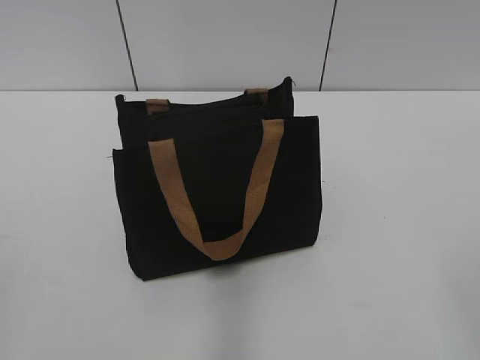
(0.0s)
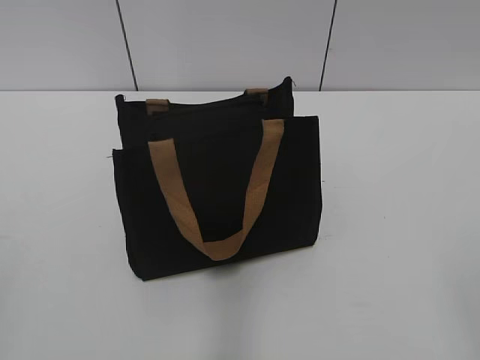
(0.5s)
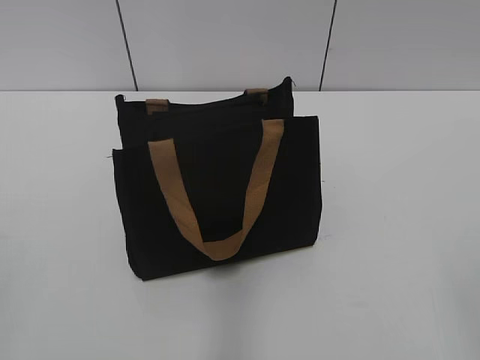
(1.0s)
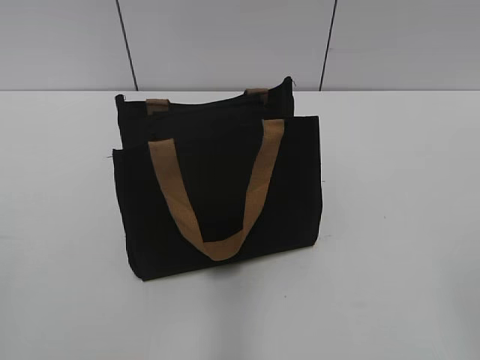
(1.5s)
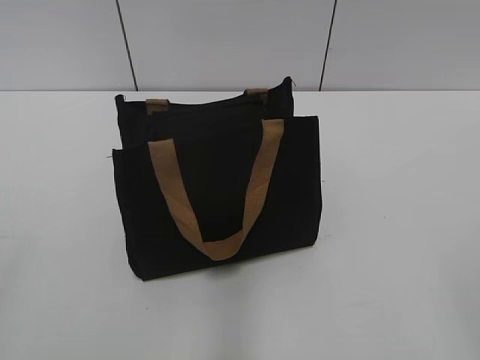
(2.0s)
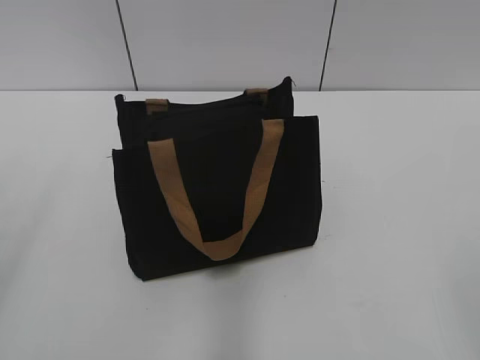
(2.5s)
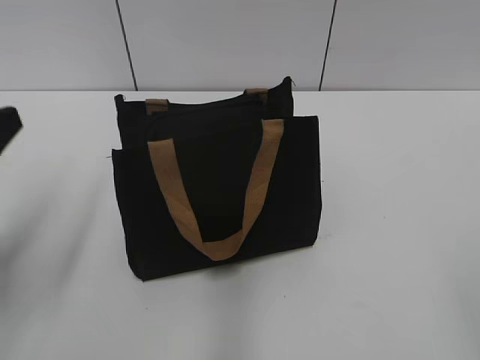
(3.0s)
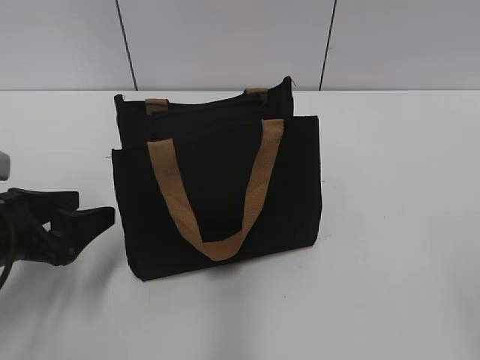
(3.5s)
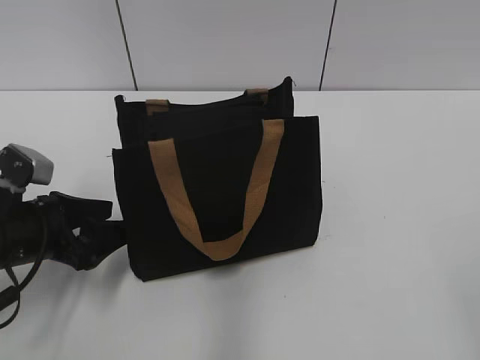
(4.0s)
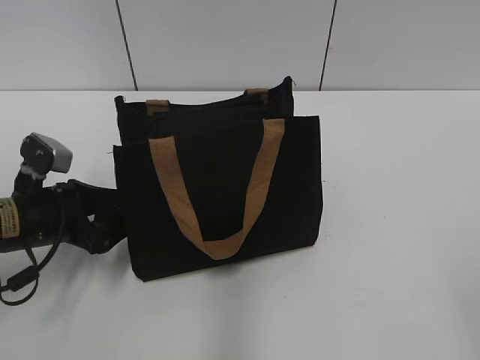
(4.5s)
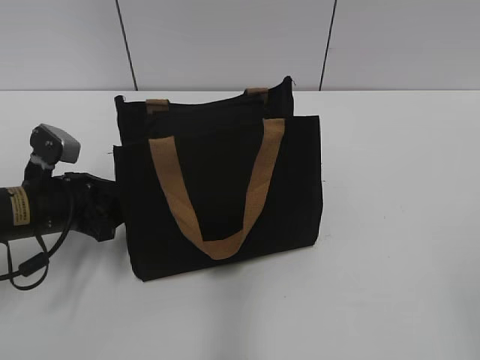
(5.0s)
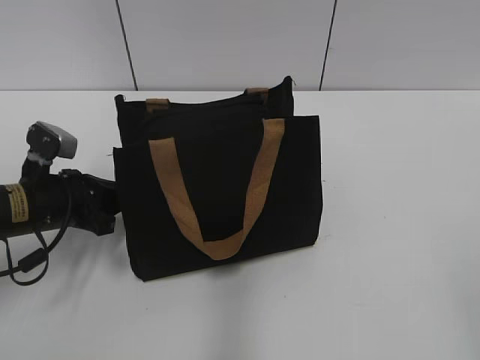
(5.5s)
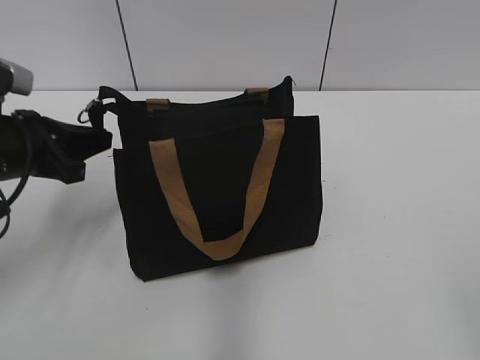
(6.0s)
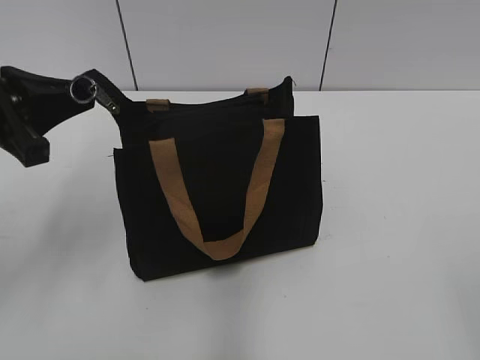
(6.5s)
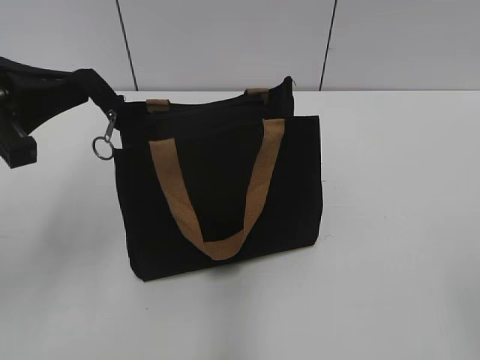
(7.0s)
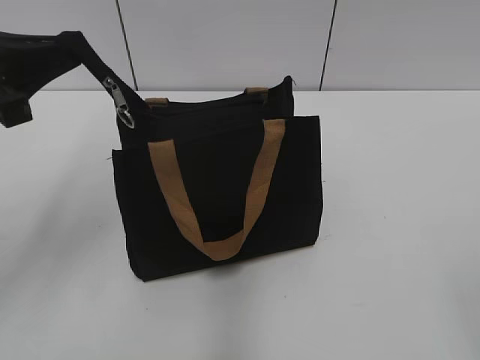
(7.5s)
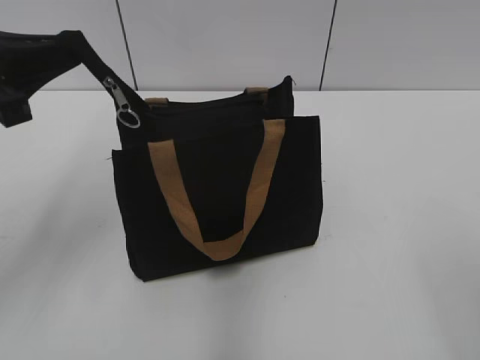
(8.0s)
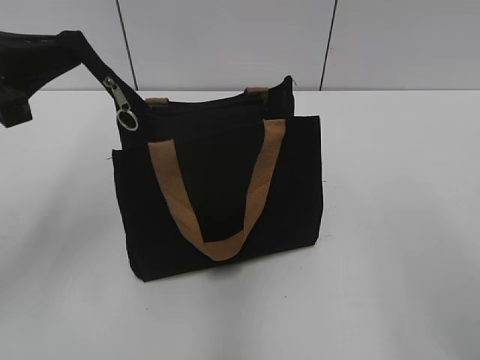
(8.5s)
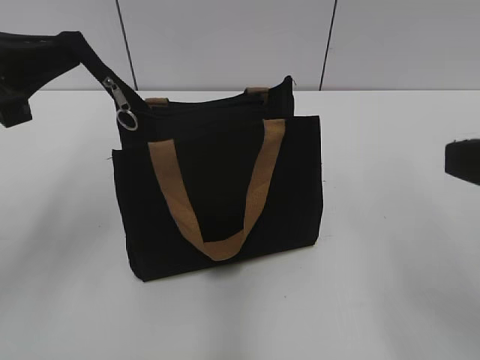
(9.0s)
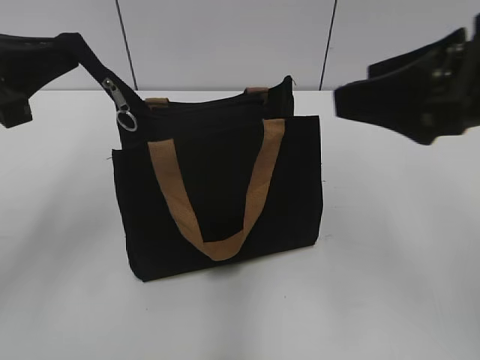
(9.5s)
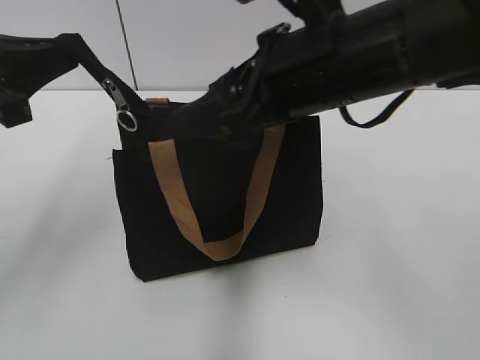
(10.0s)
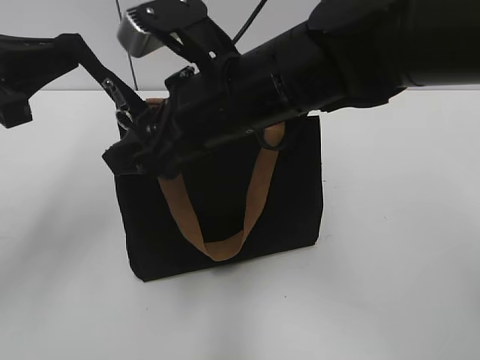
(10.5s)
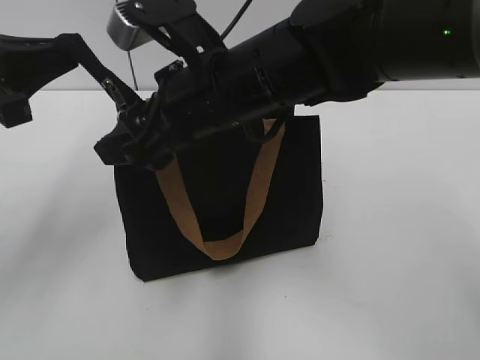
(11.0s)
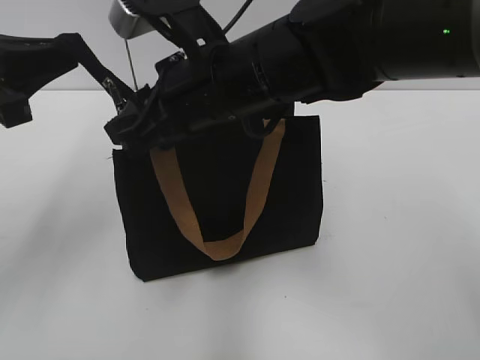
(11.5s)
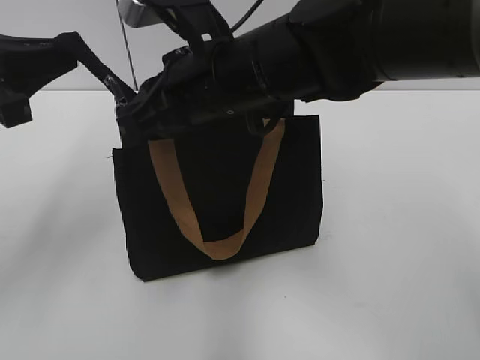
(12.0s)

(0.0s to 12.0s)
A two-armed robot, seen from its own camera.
2.0s - 4.0s: The left gripper shifts roughly 30 cm forward and downward.
4.0s - 6.0s: The left gripper heads upward, covering roughly 5 cm, and closes up.
6.0s - 8.0s: The left gripper moves upward, some 10 cm.
8.0s - 10.0s: The right gripper goes about 30 cm forward and to the left.
10.0s - 12.0s: The right gripper is displaced to the left by roughly 10 cm, and closes up.

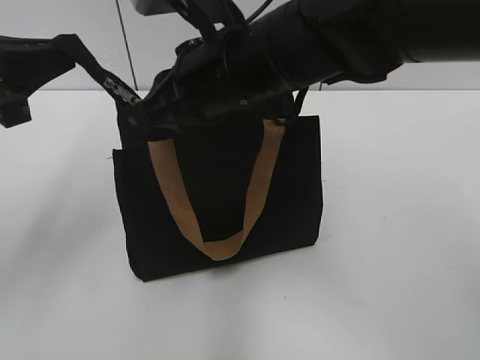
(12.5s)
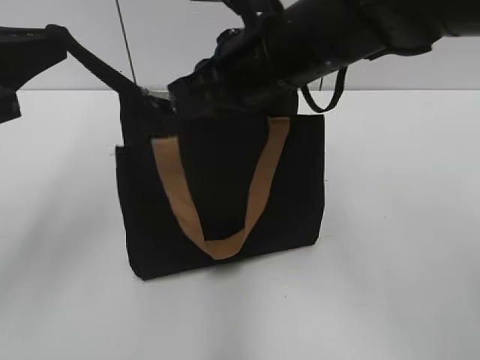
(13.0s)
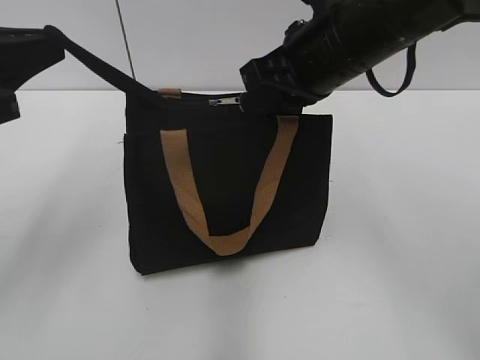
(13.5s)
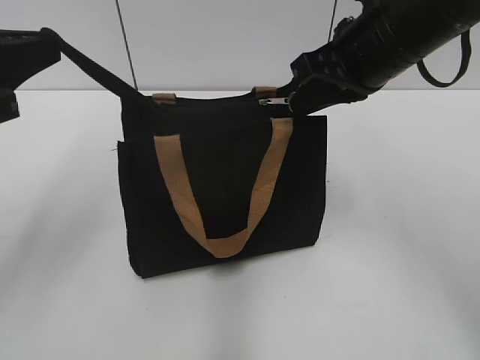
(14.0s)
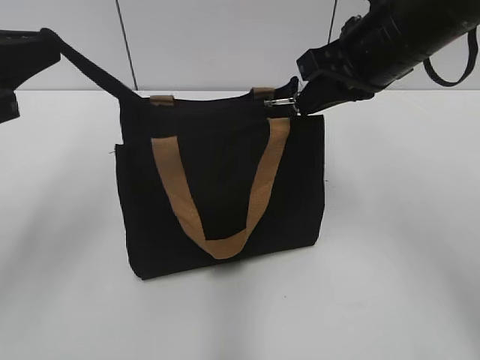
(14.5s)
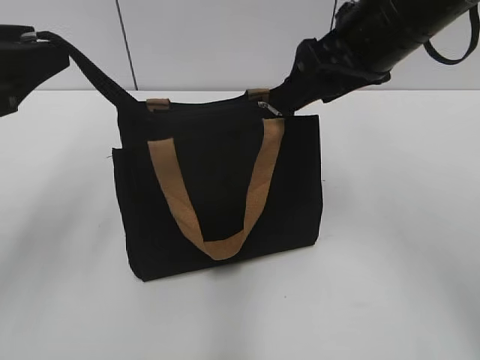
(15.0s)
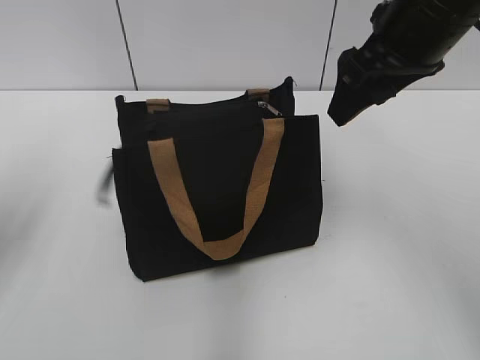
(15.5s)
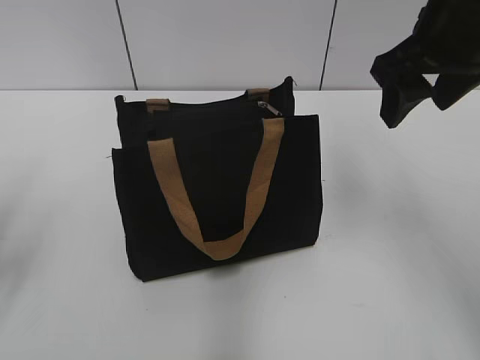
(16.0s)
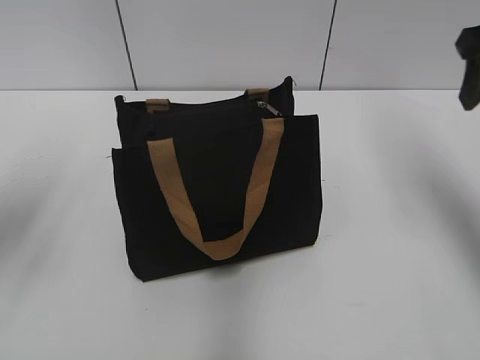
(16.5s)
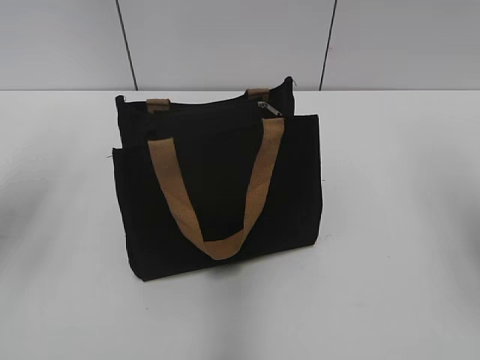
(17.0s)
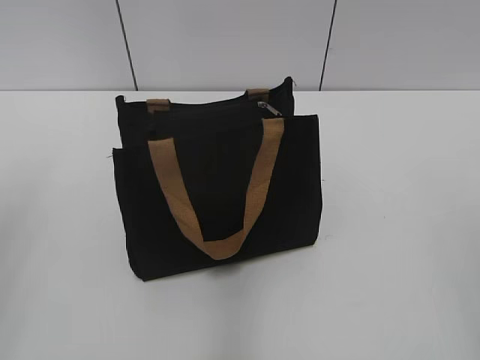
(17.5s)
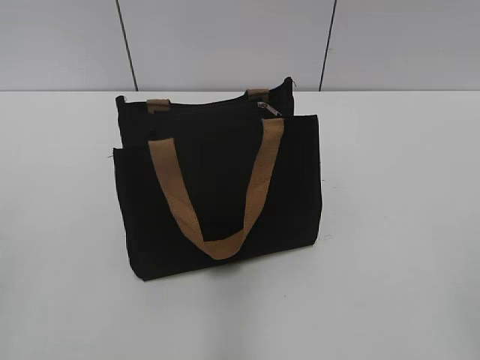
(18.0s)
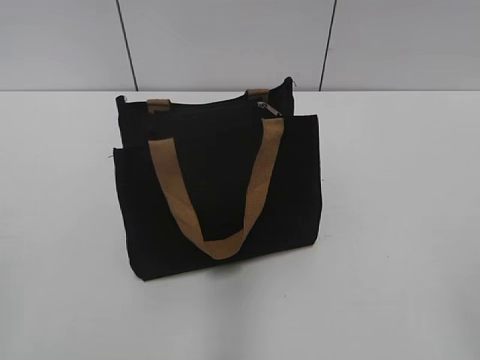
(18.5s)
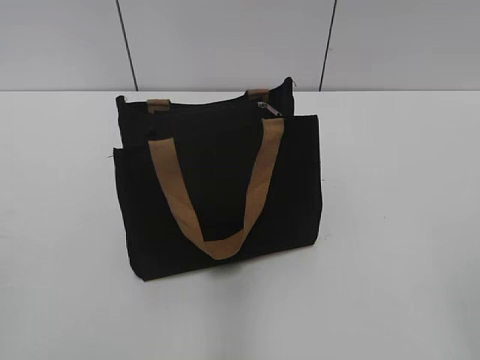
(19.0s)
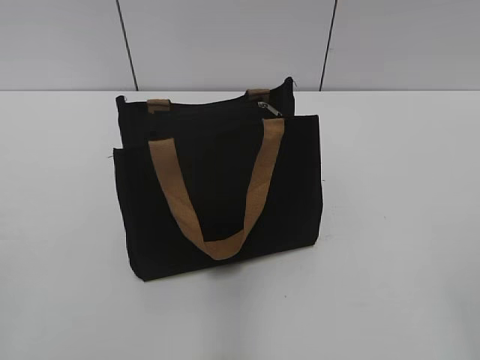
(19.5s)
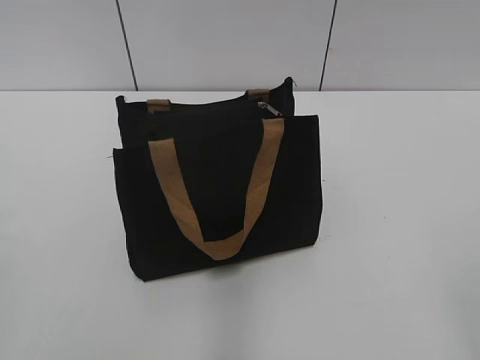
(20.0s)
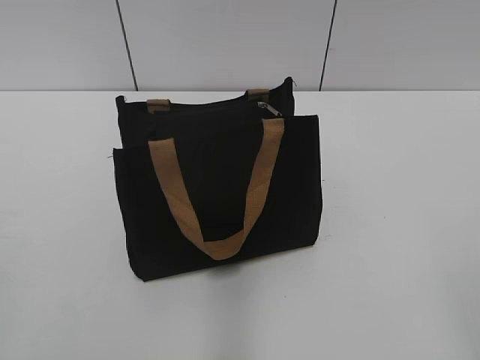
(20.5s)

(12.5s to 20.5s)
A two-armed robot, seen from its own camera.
Step, 12.5s - 14.5s: Zip up the bag with your right hand.
12.5s - 14.5s: The right gripper shifts about 15 cm to the right.
14.5s - 16.5s: The right gripper heads to the right, covering approximately 10 cm, and opens its fingers; the left gripper opens.
16.5s - 18.5s: Both grippers move backward, about 30 cm.
18.5s - 20.5s: The two grippers keep their place.

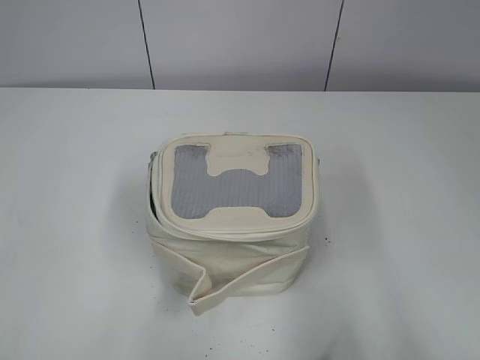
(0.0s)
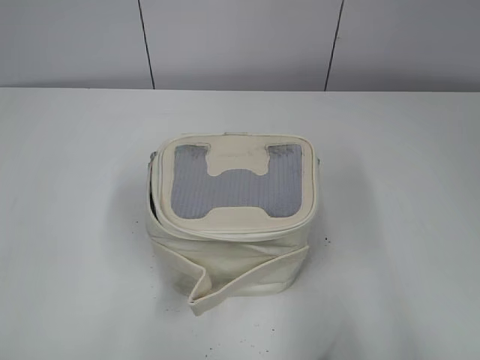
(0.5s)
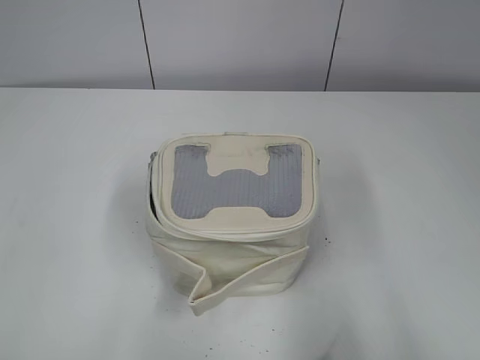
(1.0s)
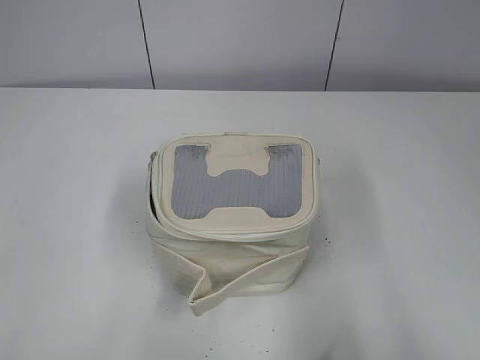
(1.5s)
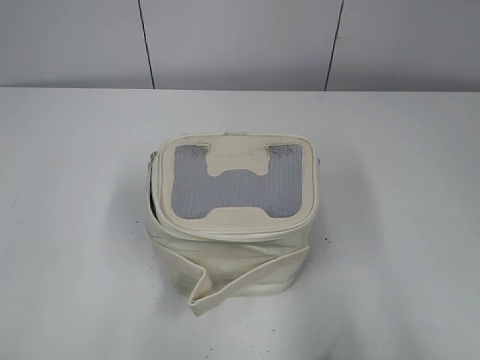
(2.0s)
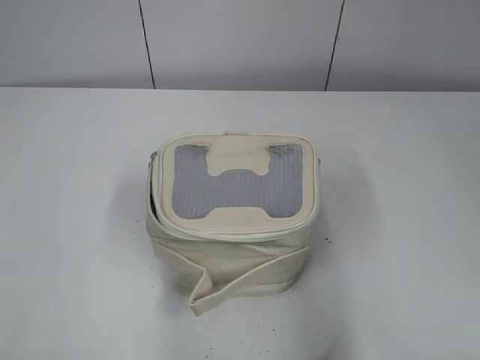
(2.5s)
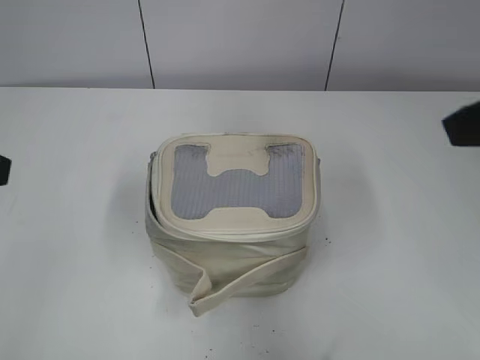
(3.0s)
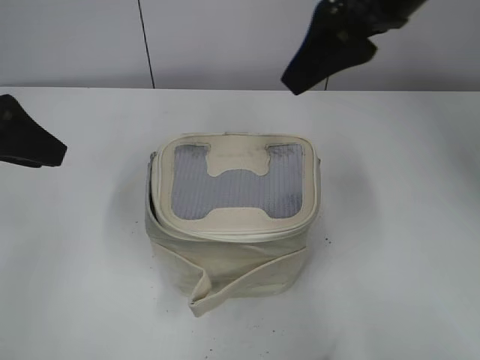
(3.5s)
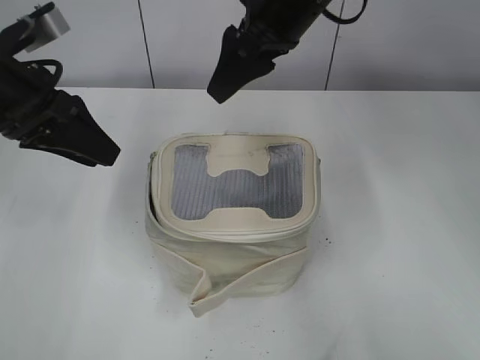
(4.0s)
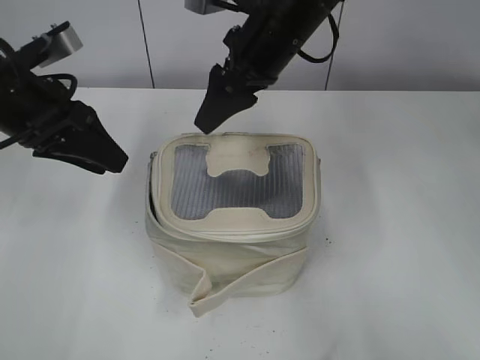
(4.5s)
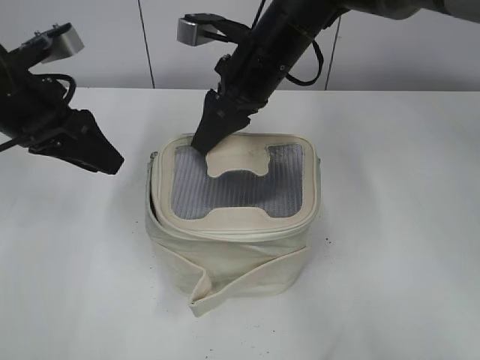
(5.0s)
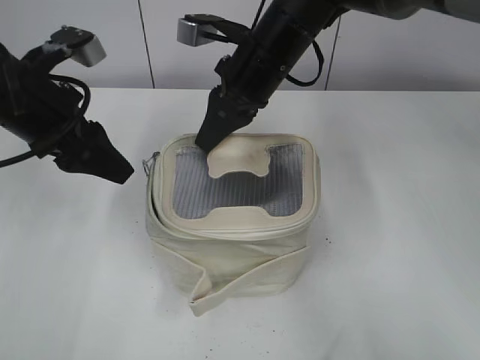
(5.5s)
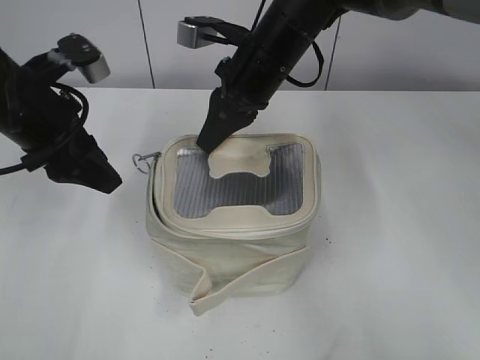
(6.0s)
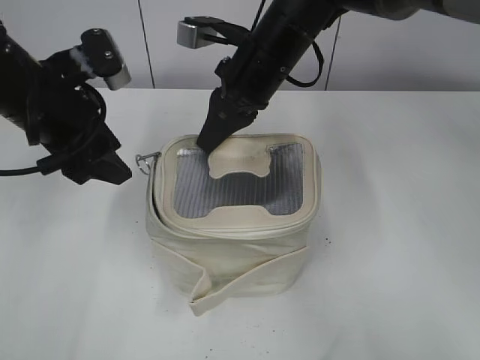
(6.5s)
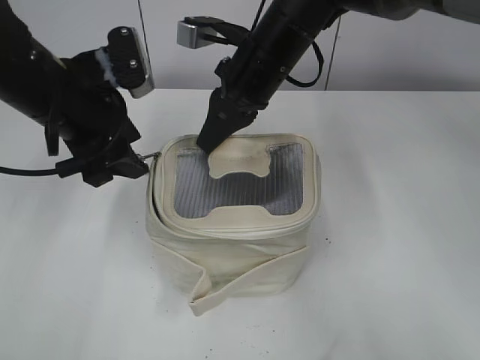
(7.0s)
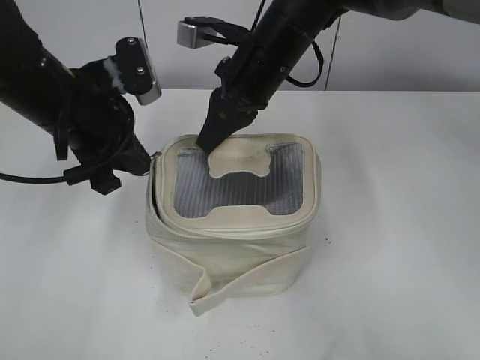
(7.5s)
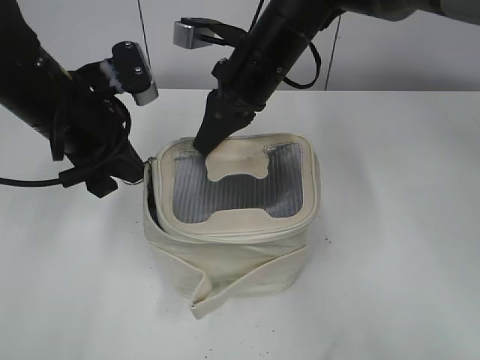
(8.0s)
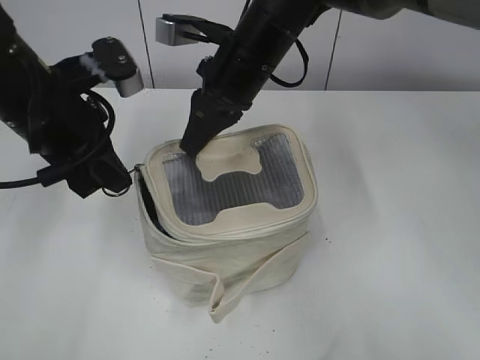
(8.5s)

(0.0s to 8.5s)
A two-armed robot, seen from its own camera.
2.0s - 4.0s: The left gripper shifts some 30 cm forward. Meanwhile the right gripper shifts roughly 50 cm forward and to the left.
4.0s - 6.5s: The right gripper moves downward, about 10 cm, and closes up.
6.5s - 8.5s: The left gripper closes up.
